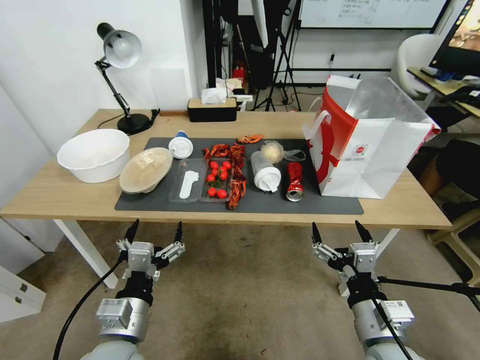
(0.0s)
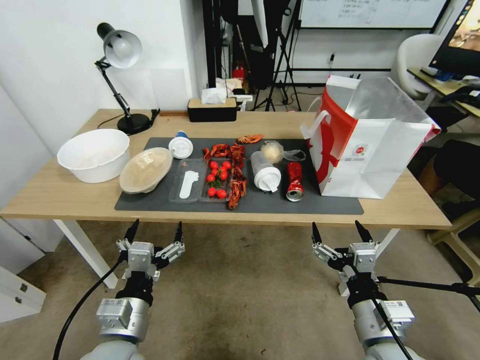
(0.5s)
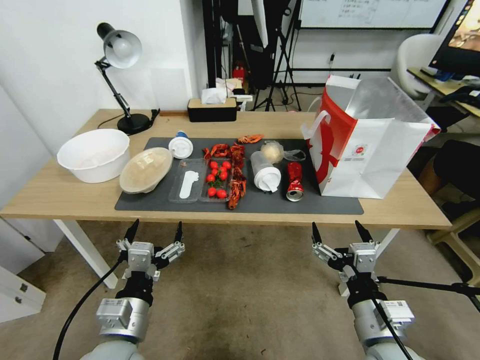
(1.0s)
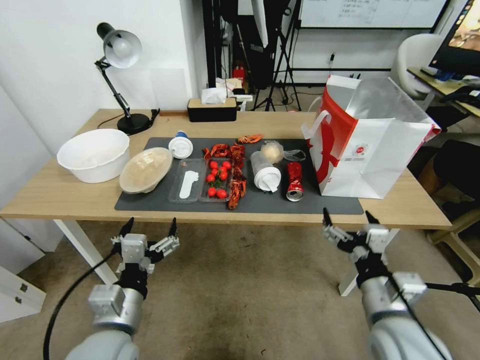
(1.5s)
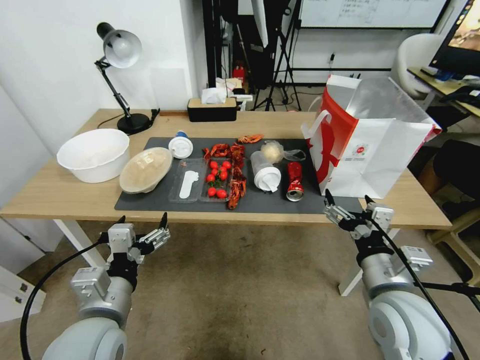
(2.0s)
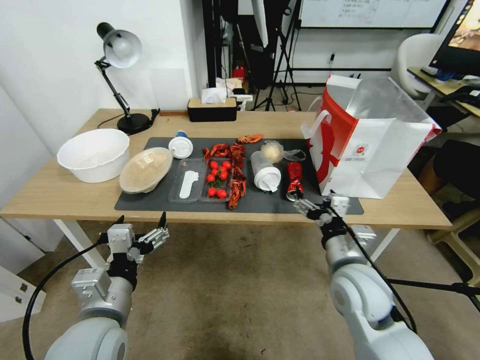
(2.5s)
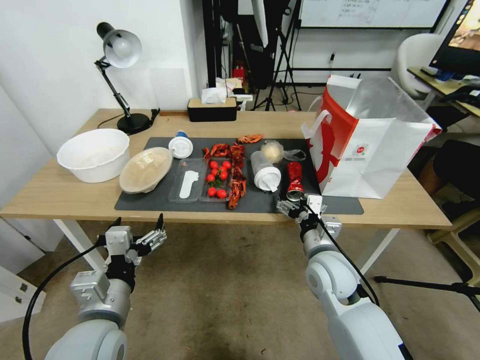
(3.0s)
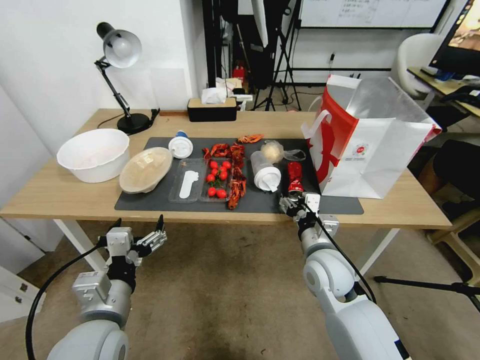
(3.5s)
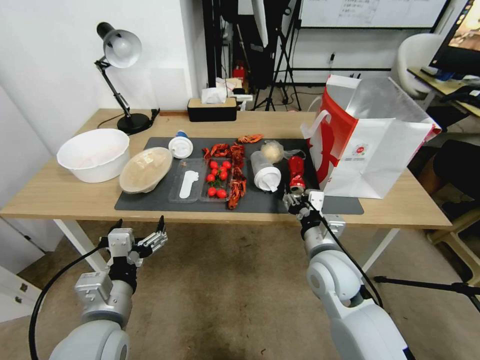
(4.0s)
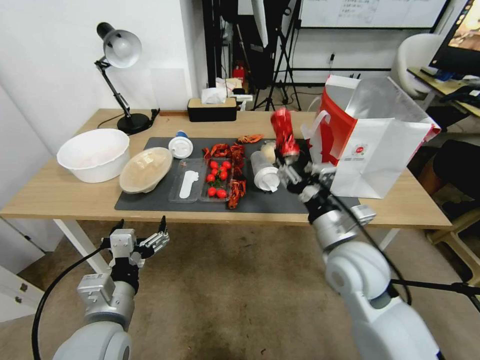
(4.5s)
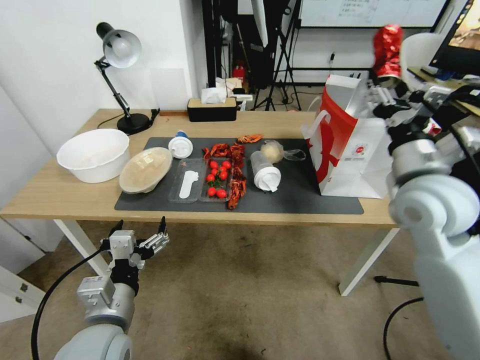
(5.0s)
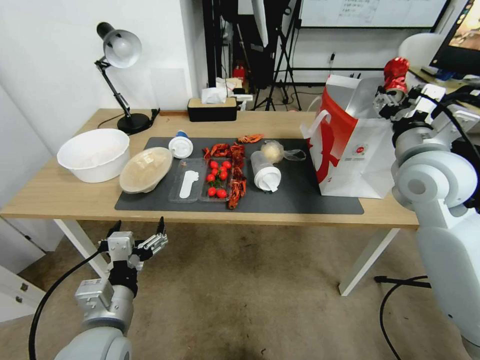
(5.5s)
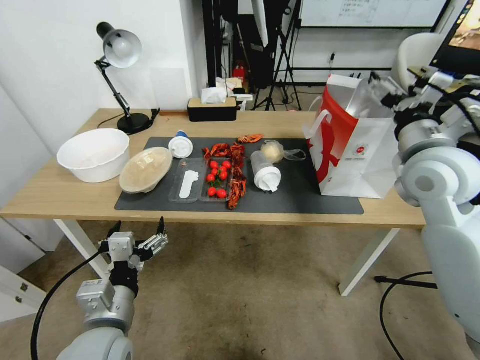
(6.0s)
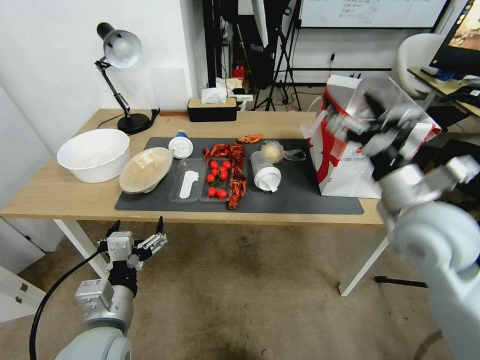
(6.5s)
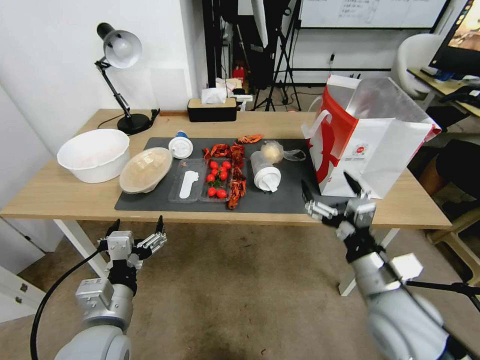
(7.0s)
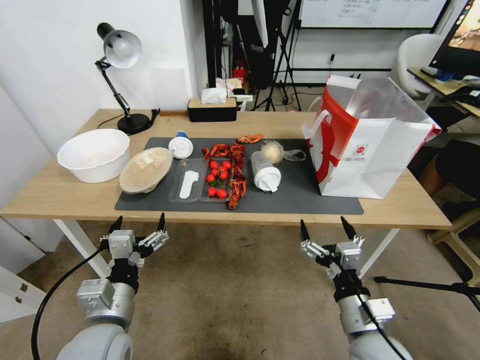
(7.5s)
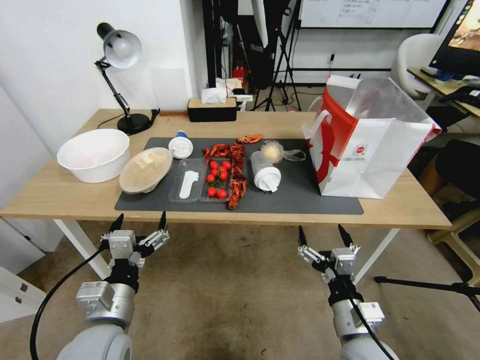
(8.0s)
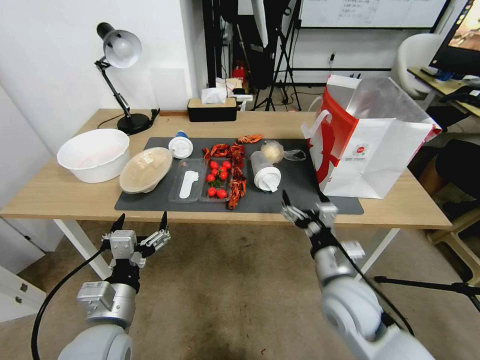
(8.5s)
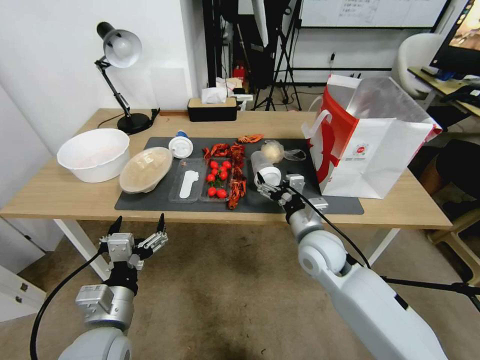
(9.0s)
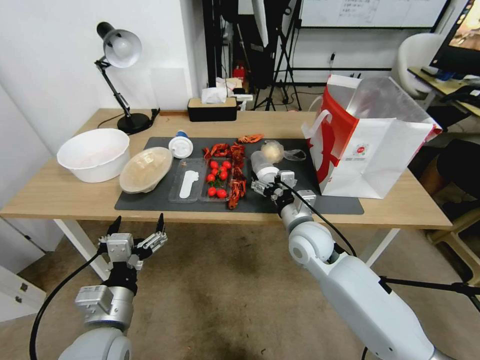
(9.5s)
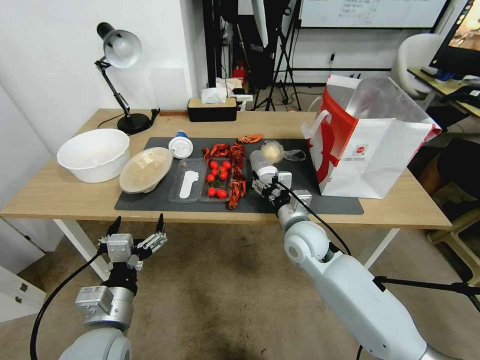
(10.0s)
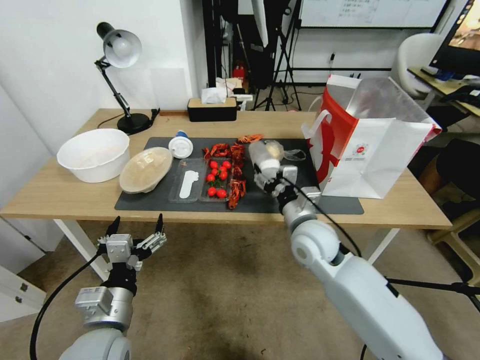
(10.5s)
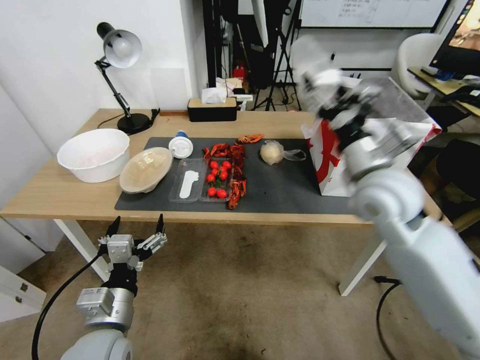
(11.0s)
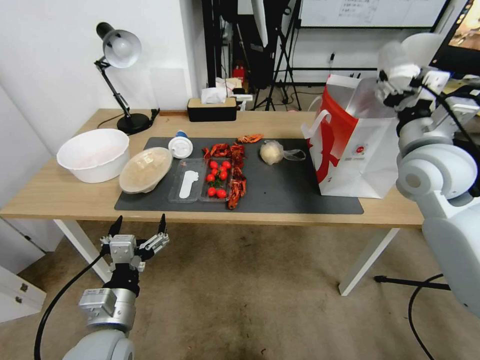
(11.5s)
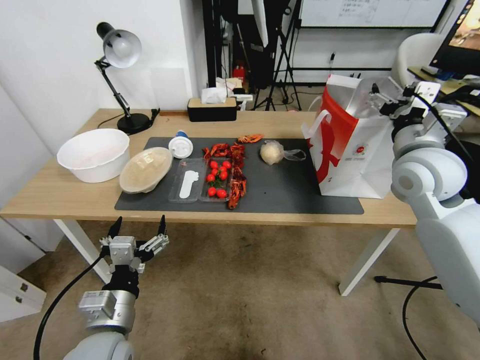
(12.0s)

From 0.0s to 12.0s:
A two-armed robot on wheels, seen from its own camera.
From 2.0s to 4.0s: The right gripper goes roughly 15 cm forward, to the left and downward, and closes up.
From 4.0s to 6.0s: The right gripper moves upward and to the right, some 25 cm, and opens its fingers.
From 6.0s to 8.0s: The right gripper is displaced downward and backward by some 35 cm.
From 8.0s to 10.0s: The right gripper shifts some 20 cm forward.
From 10.0s to 12.0s: The right gripper travels upward and to the right by approximately 25 cm.

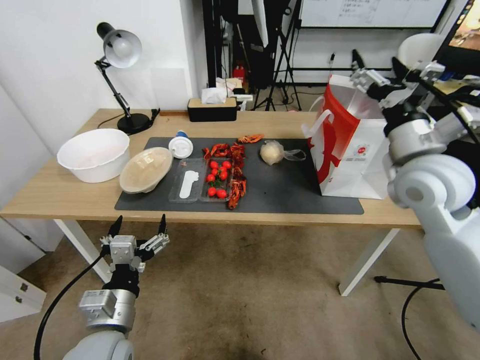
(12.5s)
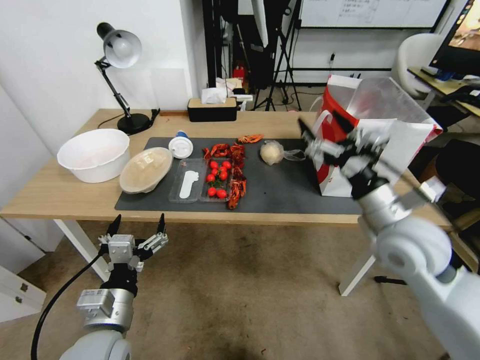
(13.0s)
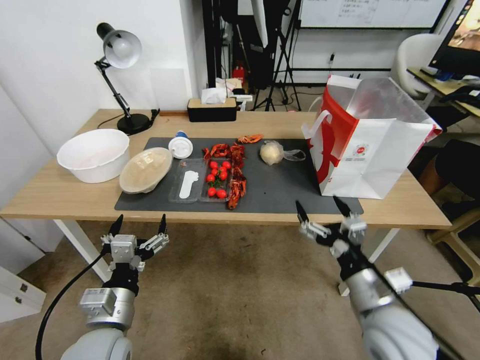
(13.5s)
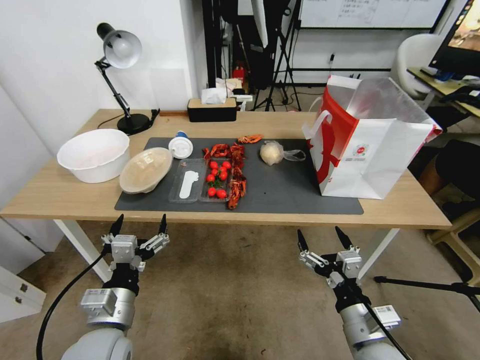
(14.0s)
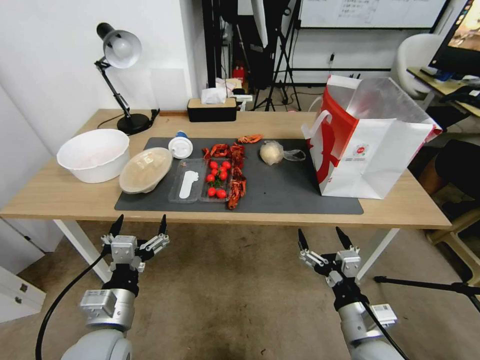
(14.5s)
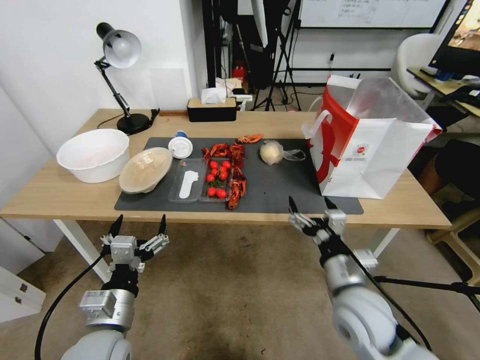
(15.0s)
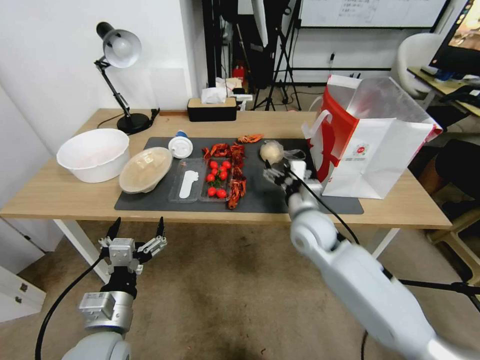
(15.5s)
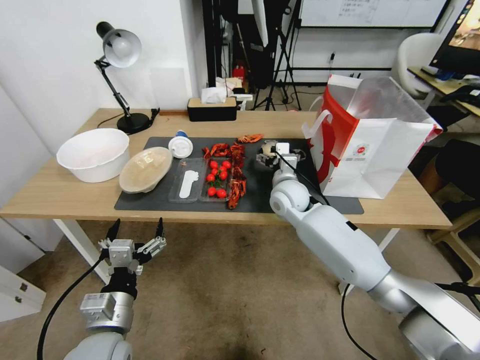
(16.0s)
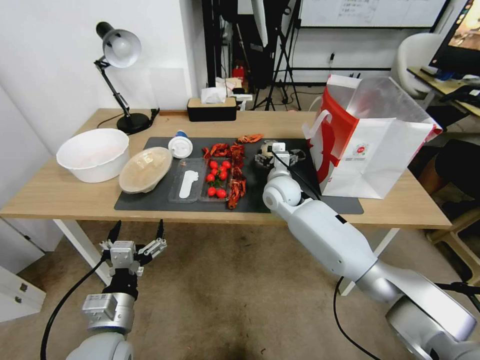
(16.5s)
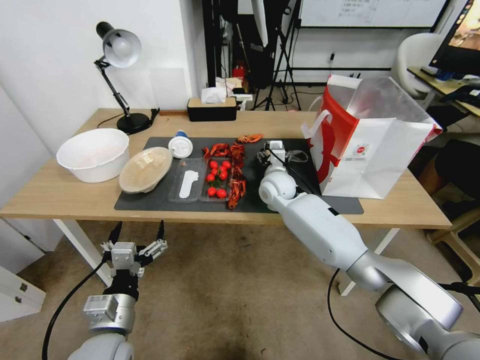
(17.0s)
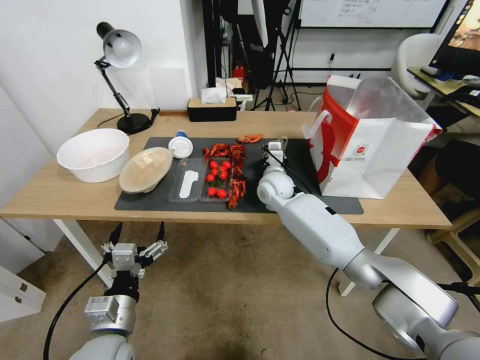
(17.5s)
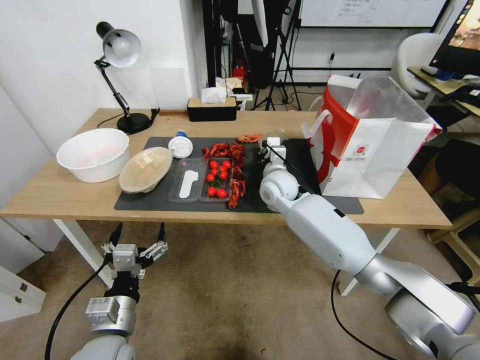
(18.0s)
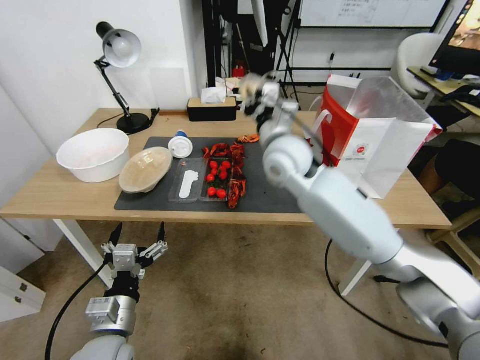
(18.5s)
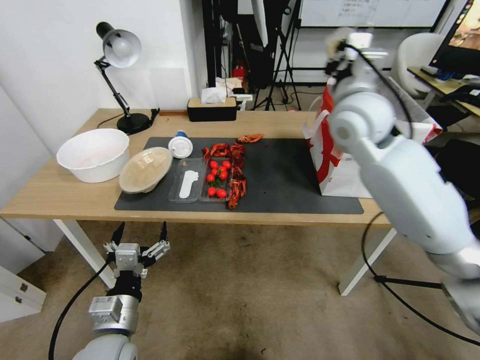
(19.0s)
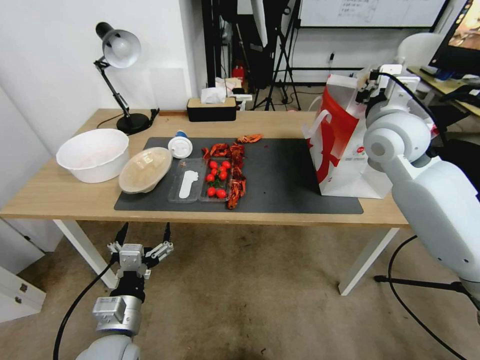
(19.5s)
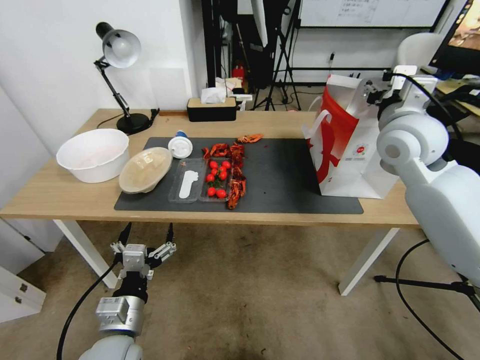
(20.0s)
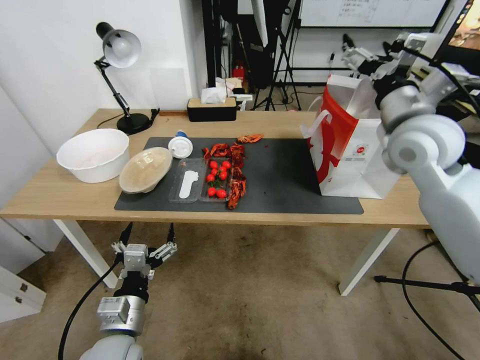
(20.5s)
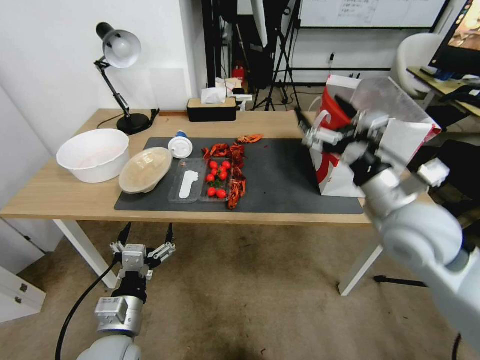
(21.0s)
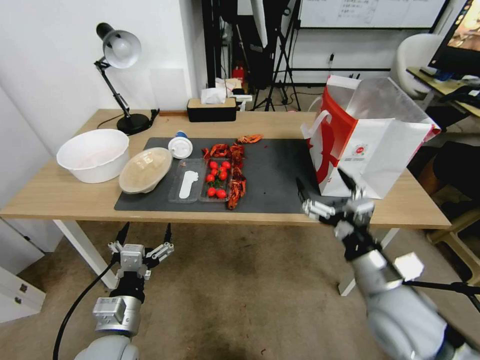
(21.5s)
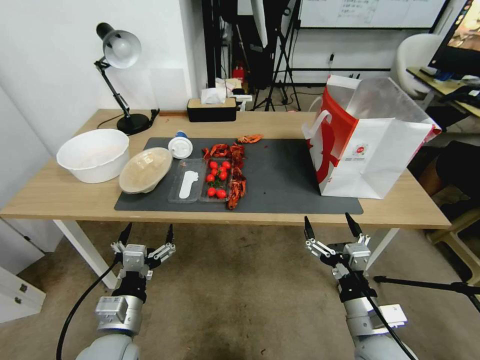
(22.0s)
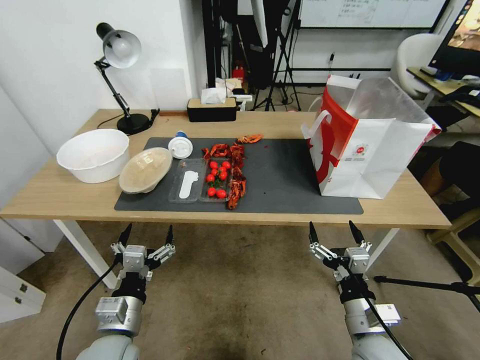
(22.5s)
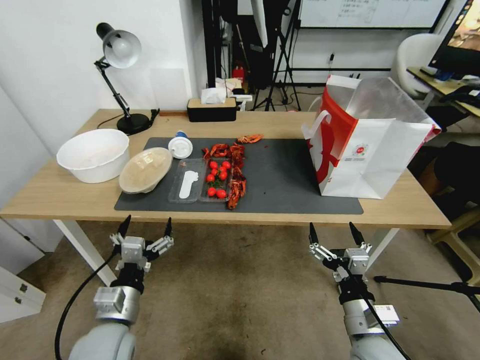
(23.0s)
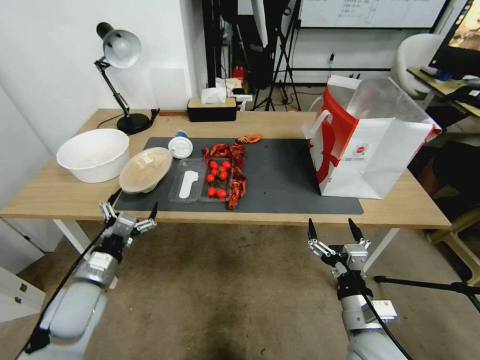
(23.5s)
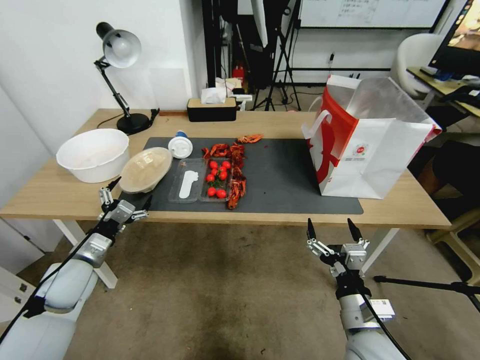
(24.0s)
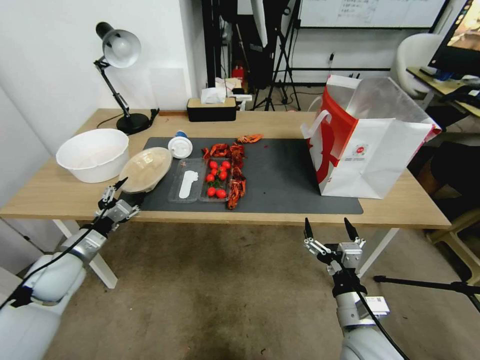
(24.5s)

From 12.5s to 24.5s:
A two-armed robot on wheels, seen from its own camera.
From 12.5s to 14.5s: The right gripper travels downward and backward by some 35 cm.
From 14.5s to 16.5s: The right gripper shifts approximately 35 cm forward.
From 16.5s to 18.5s: The right gripper heads upward, covering about 15 cm, and closes up.
From 18.5s to 20.5s: The right gripper moves to the right, roughly 20 cm, and opens its fingers.
From 20.5s to 22.5s: The right gripper moves downward and backward, approximately 40 cm.
From 22.5s to 24.5s: The left gripper is displaced to the left and forward by about 20 cm.

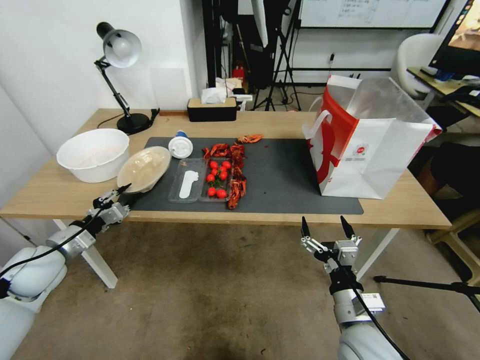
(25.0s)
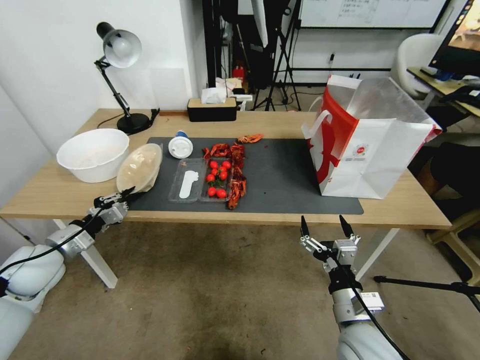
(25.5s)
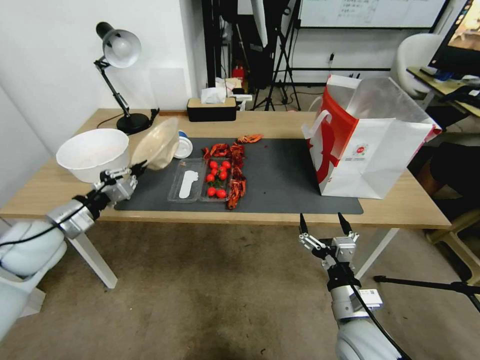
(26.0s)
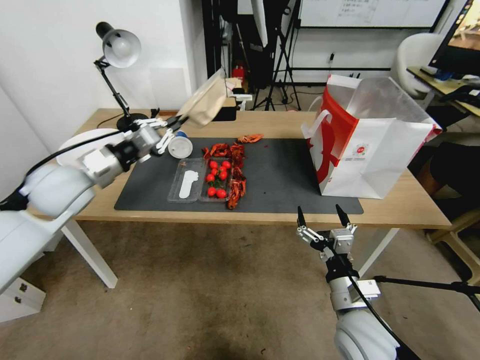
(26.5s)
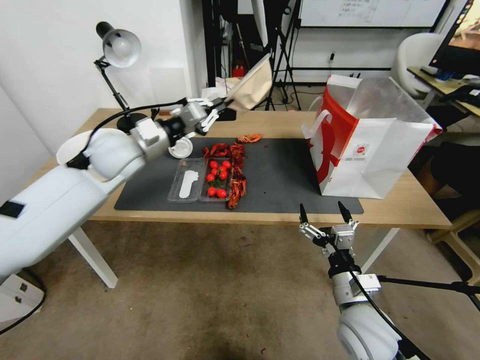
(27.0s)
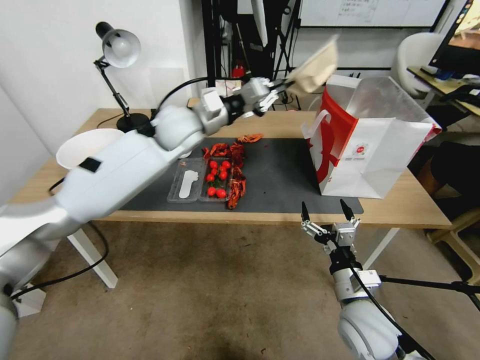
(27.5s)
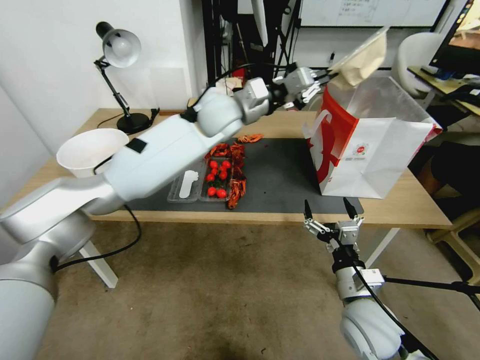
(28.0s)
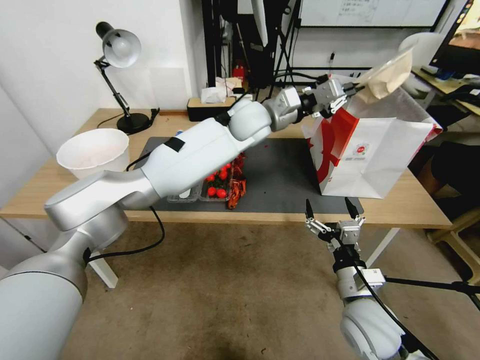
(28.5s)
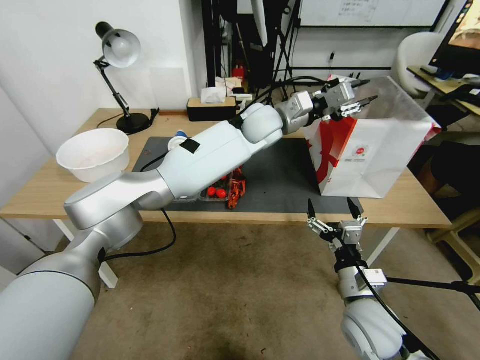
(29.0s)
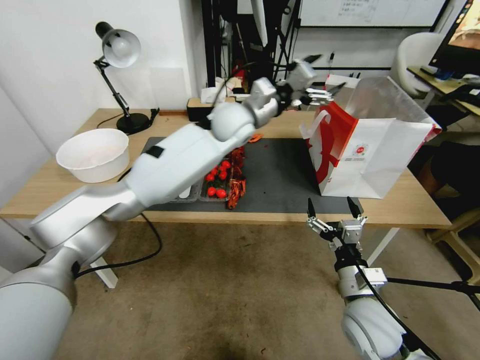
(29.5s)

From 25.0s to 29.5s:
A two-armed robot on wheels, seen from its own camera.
From 25.0s to 27.0s: The left gripper heads upward, to the right and forward, covering some 30 cm.
From 27.0s to 29.5s: The left gripper moves to the right, some 25 cm, and opens.
